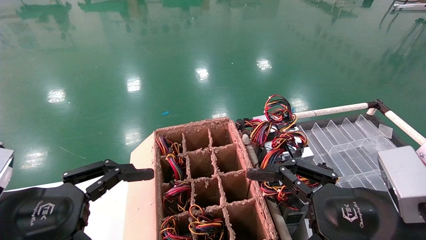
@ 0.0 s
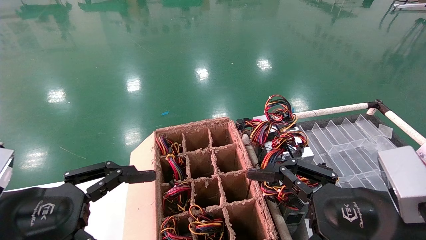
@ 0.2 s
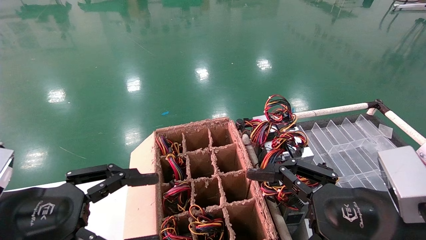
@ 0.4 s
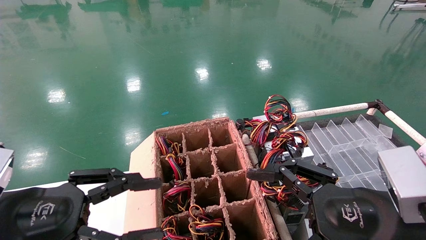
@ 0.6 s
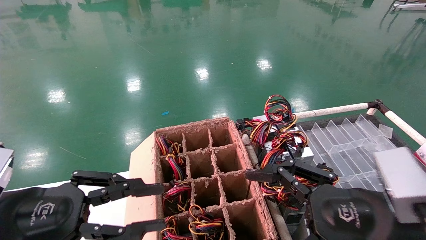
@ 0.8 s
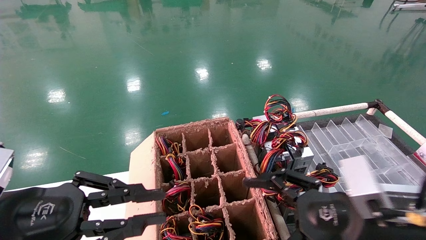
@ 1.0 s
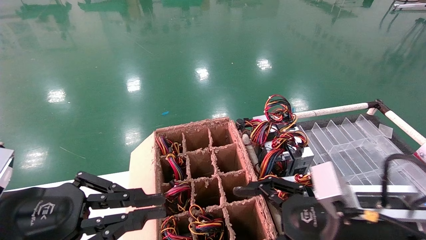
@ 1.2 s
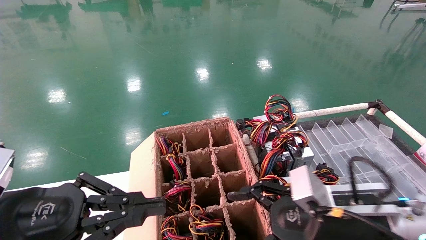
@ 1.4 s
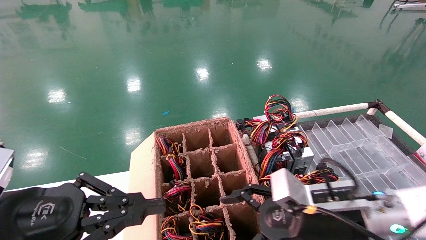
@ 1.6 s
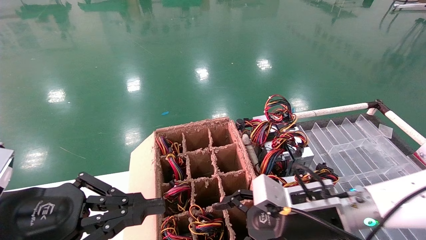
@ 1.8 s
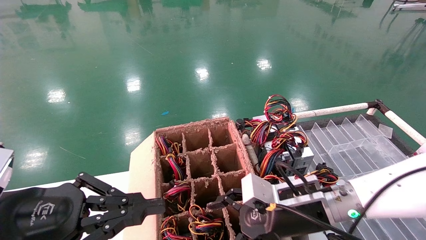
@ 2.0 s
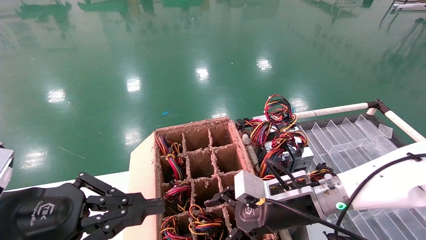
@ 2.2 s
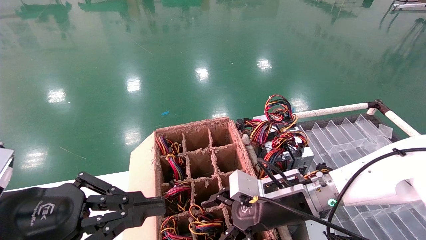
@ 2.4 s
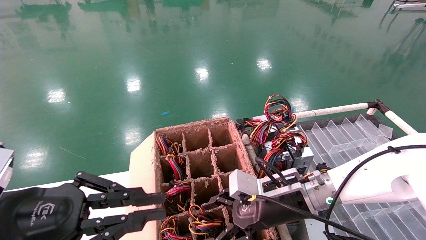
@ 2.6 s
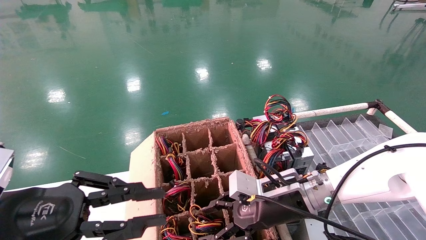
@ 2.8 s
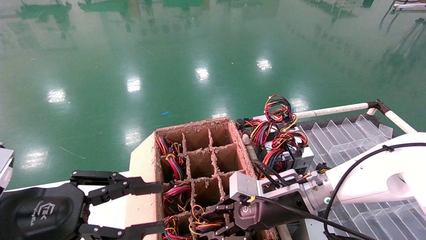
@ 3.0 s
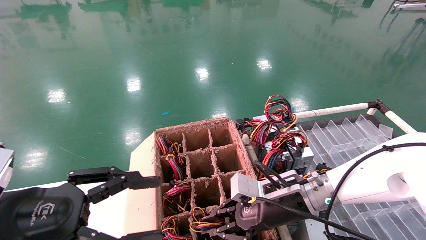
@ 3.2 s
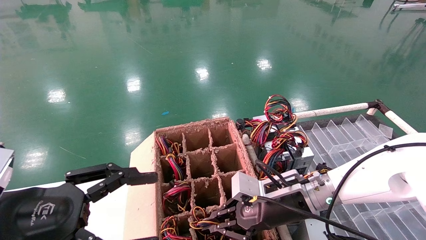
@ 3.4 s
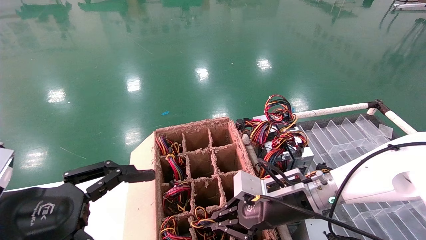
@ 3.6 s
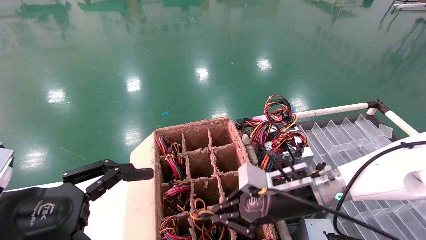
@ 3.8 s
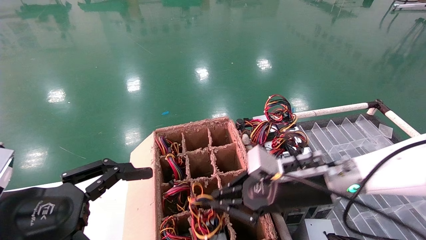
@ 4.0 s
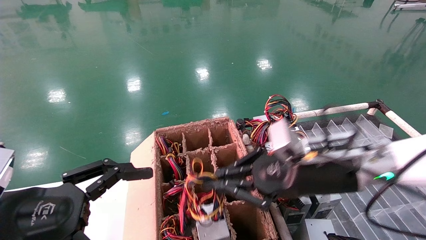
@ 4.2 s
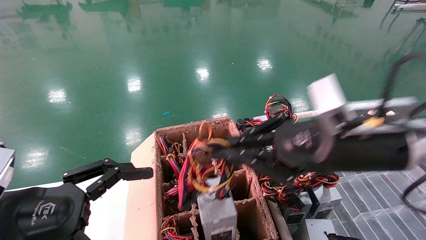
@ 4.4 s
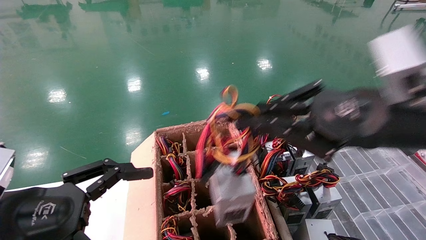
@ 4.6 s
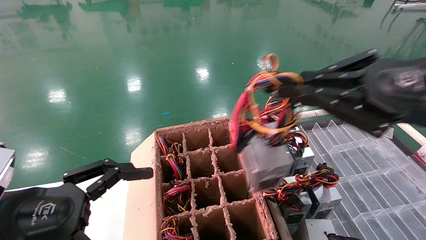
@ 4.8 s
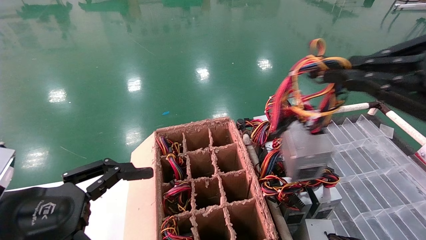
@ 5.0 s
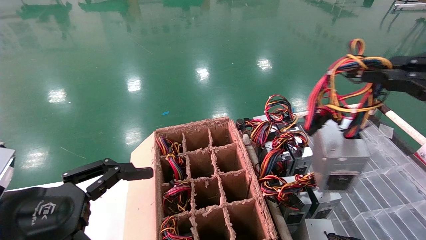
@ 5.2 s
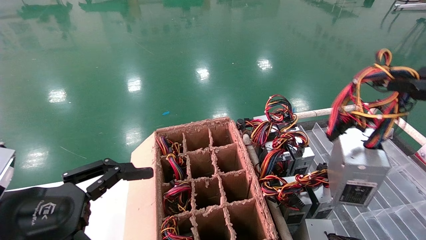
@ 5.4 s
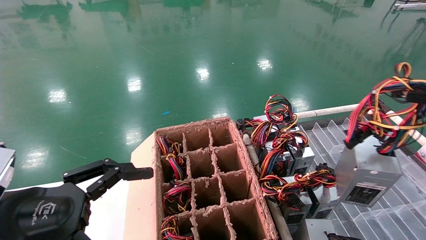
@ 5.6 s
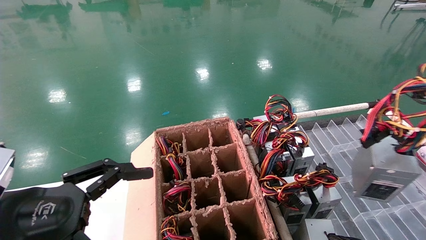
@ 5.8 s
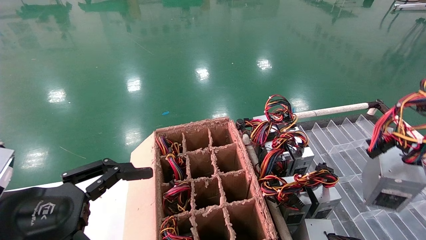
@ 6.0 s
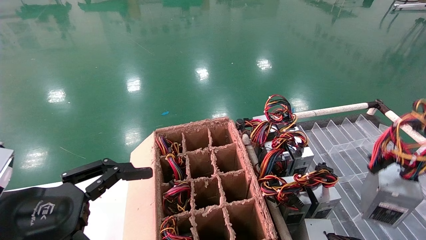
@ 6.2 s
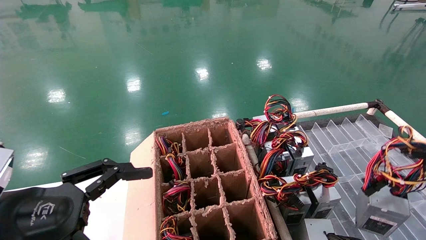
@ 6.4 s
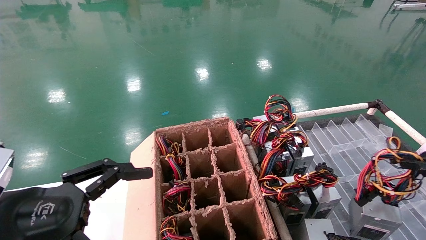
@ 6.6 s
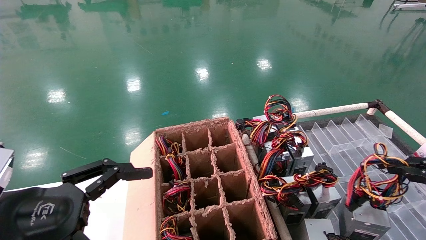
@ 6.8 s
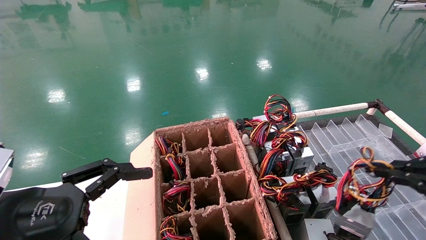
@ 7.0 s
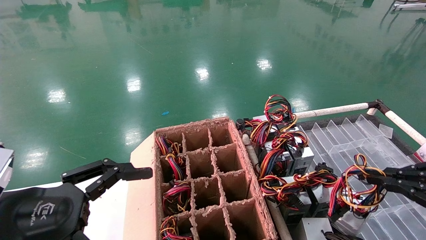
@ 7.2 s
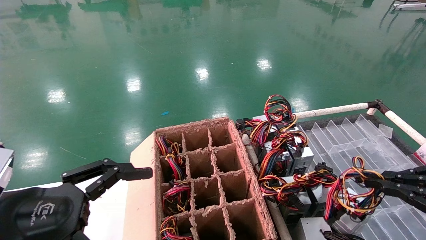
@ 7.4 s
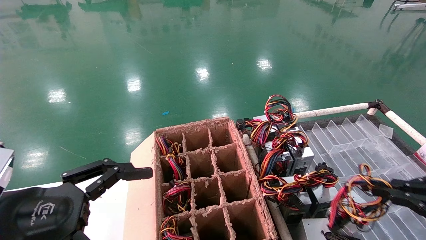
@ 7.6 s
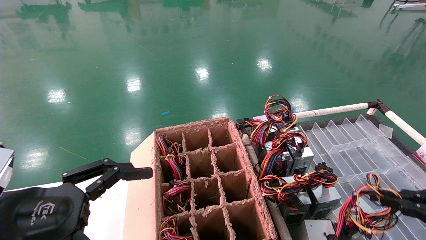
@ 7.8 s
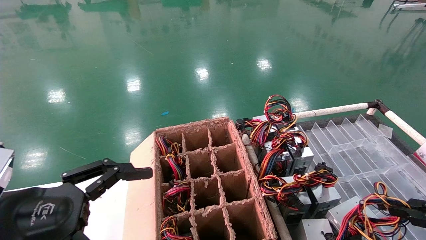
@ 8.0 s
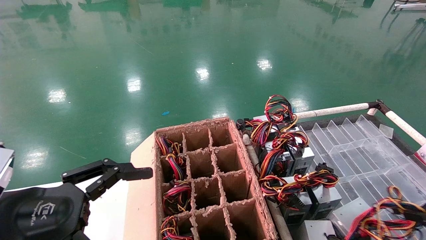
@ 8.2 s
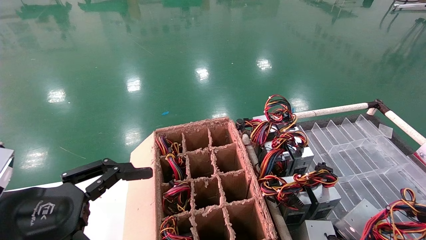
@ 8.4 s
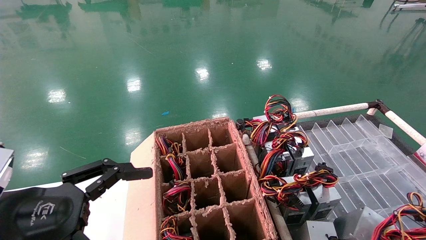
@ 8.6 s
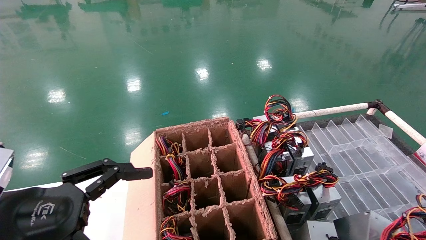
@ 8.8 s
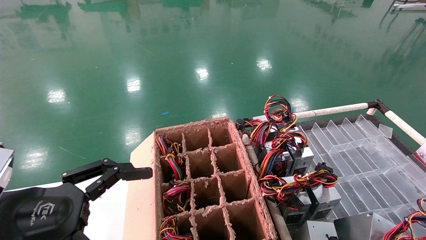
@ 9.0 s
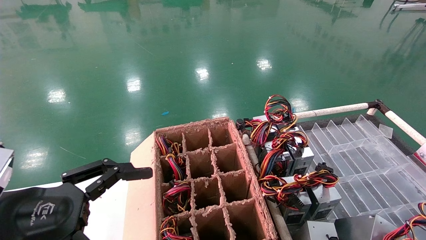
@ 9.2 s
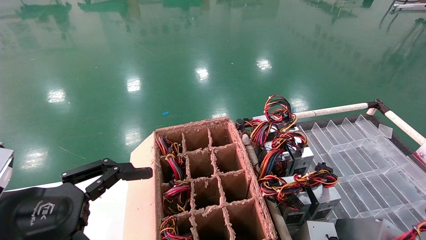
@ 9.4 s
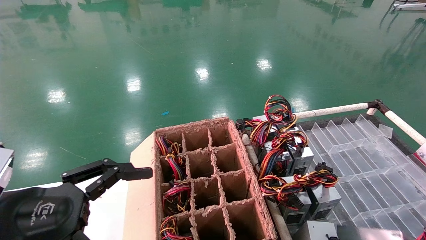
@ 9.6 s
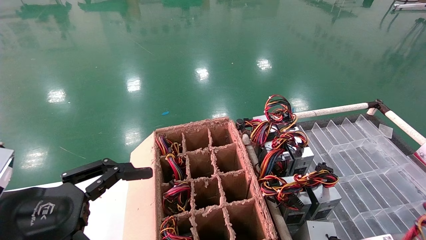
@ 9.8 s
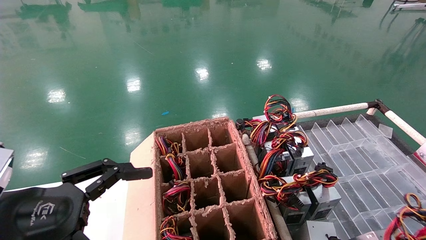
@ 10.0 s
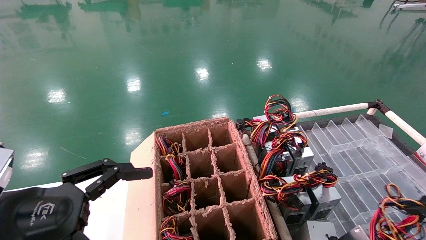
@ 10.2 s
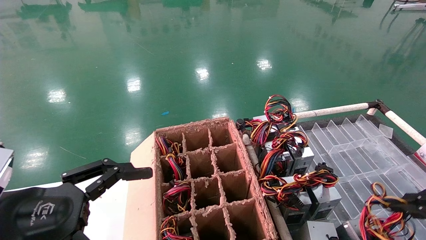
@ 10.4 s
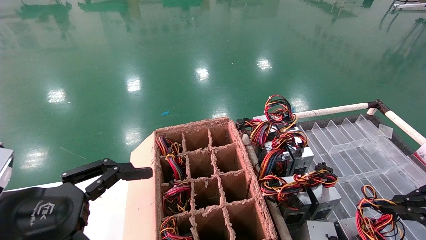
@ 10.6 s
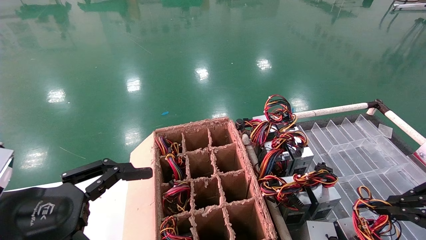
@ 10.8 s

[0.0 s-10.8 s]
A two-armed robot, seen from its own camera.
Step, 0.8 to 3.4 s: Grab and lift the power supply from the large box.
0.0 to 1.6 s: The left gripper closes up, while the right gripper is displaced forward and downward by some 10 cm.
1.6 to 3.0 s: The right gripper is displaced forward by some 10 cm, and closes.
3.0 to 4.6 s: The left gripper opens up. The right gripper goes approximately 25 cm upward, backward and to the right, and closes its fingers.
4.6 to 6.2 s: The right gripper goes approximately 25 cm to the right and backward.
6.2 to 7.8 s: The right gripper moves downward, some 10 cm.
7.8 to 9.2 s: The right gripper ends up approximately 5 cm from where it was.
9.2 to 10.8 s: The right gripper is displaced forward and to the left by approximately 10 cm.

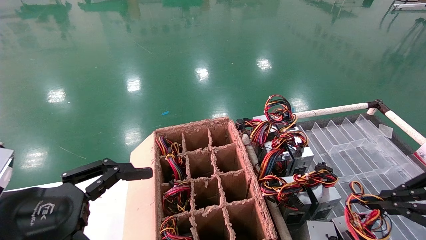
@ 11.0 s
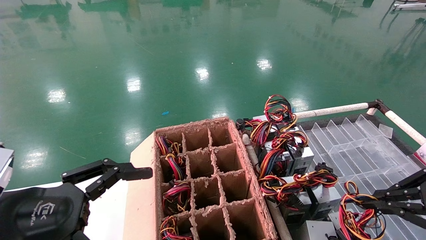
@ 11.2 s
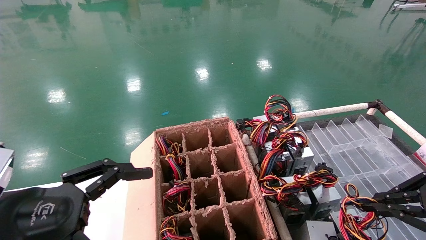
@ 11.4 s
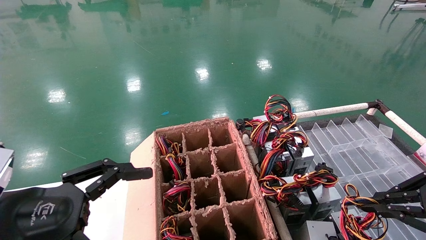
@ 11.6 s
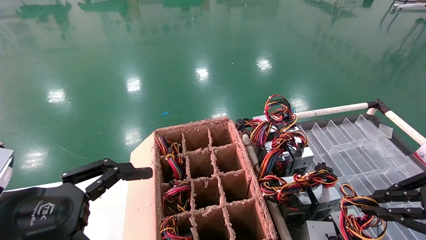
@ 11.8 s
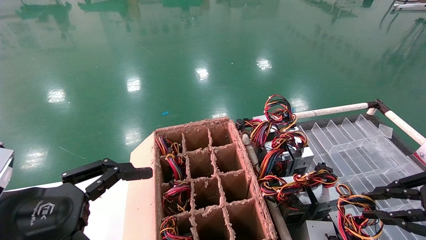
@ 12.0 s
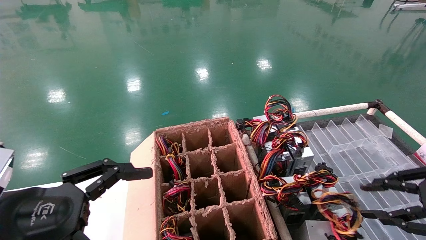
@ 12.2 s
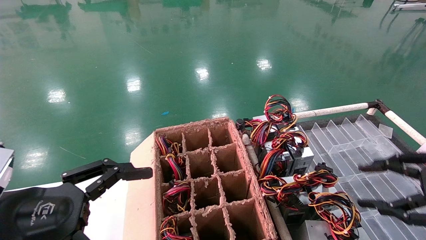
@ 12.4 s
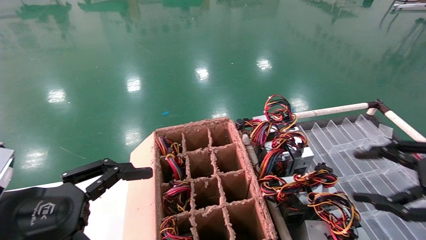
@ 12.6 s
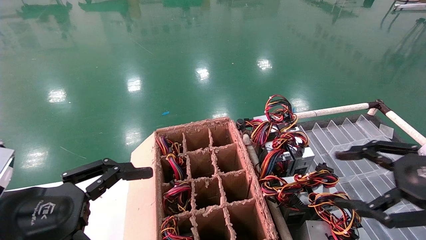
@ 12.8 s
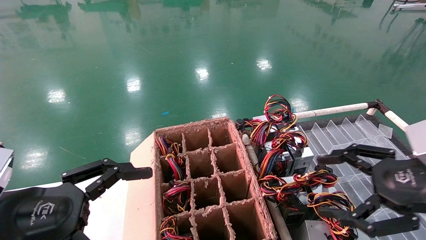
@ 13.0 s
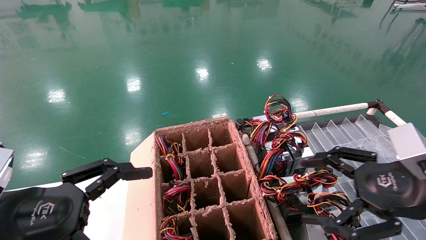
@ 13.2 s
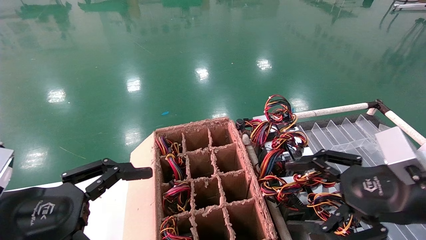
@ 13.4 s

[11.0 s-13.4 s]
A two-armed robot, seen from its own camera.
11.0 to 12.2 s: Both grippers stay about where they are.
12.2 to 13.4 s: The right gripper shifts some 10 cm to the left, and opens its fingers.

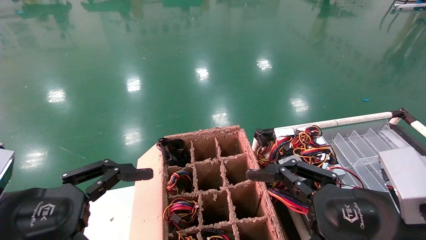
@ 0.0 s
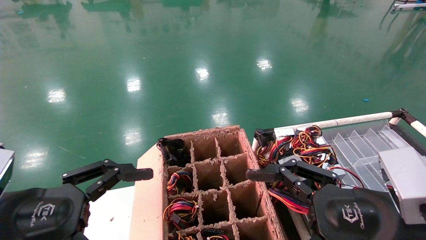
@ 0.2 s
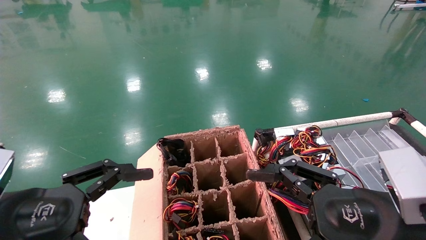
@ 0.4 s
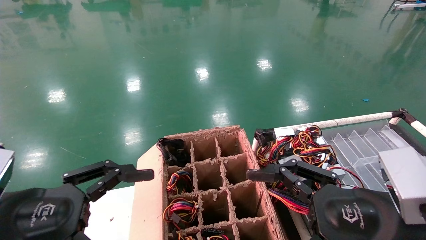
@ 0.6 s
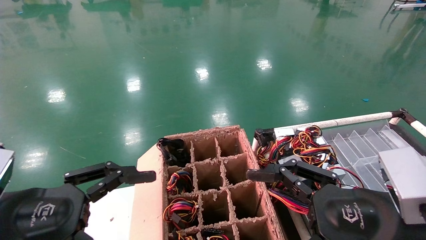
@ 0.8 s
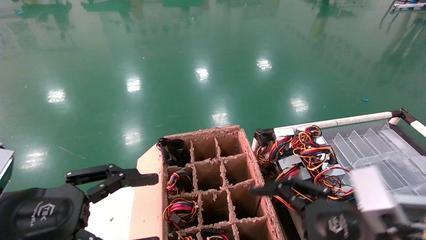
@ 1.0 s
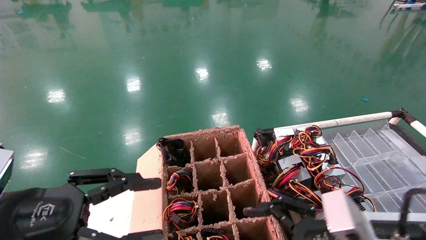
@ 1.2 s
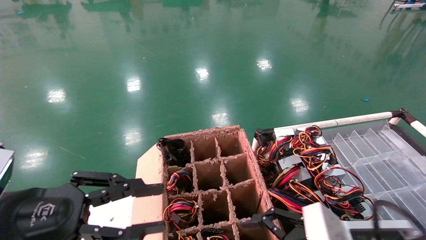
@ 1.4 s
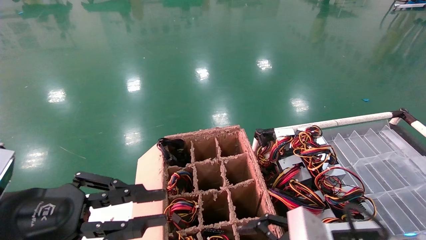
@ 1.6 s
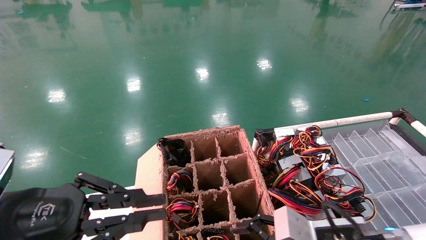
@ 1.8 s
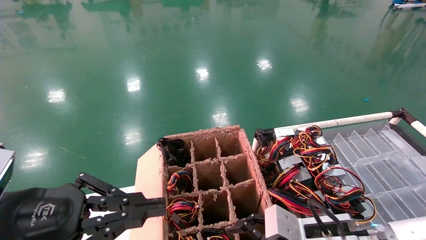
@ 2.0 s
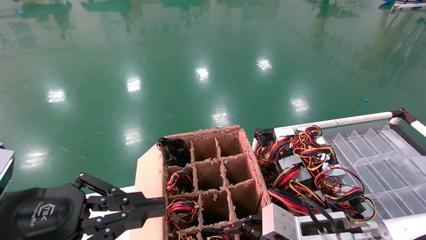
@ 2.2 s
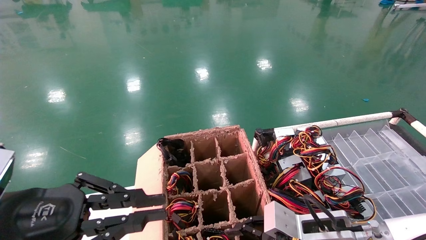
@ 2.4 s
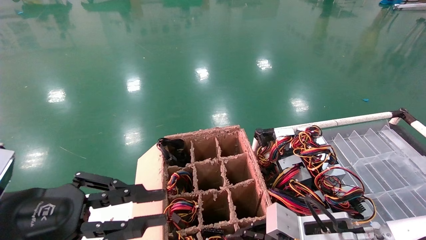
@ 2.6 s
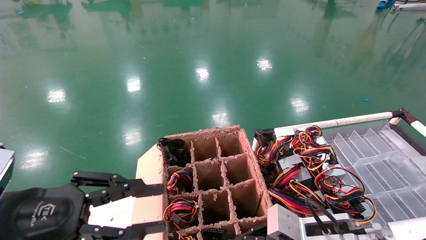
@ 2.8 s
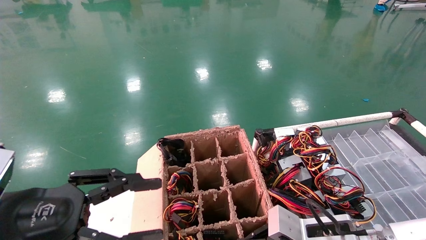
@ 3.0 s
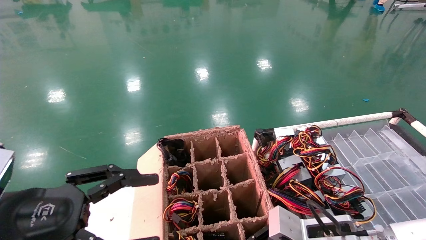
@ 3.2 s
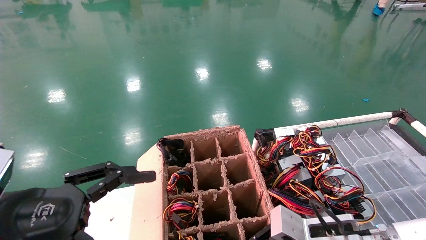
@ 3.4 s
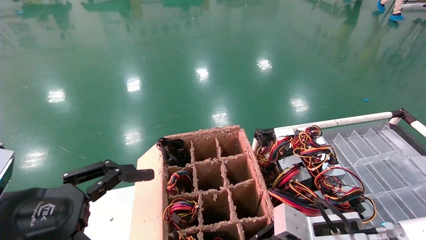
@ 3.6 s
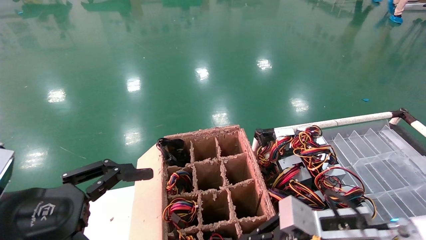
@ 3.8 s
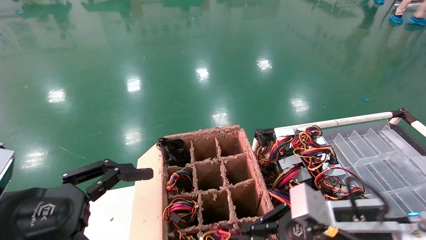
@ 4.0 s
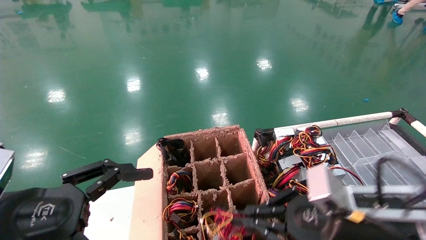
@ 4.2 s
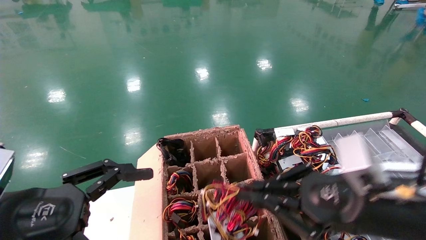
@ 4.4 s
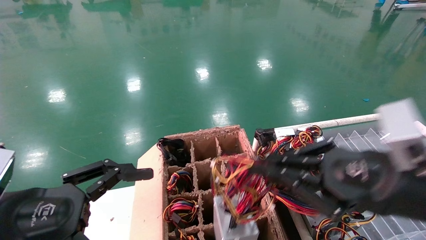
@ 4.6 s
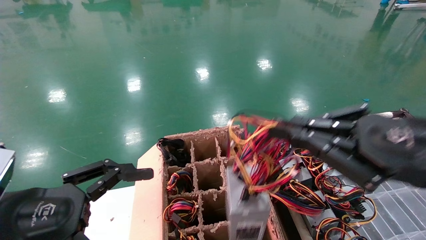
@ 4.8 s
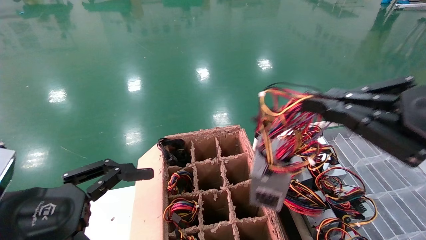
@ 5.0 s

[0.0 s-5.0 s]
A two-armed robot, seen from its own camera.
Step, 1.2 to 3.2 s: Grab and lift the power supply from the large box.
0.0 to 1.6 s: The left gripper closes. Meanwhile the right gripper shifts roughly 10 cm downward and forward.
1.6 to 3.4 s: The left gripper opens up, while the right gripper closes up.
3.4 to 5.0 s: The right gripper goes about 25 cm upward, backward and to the right.
